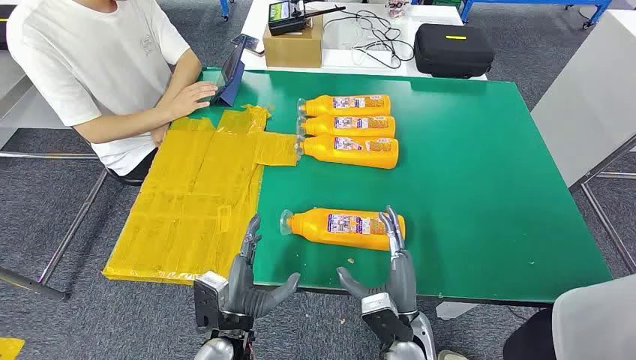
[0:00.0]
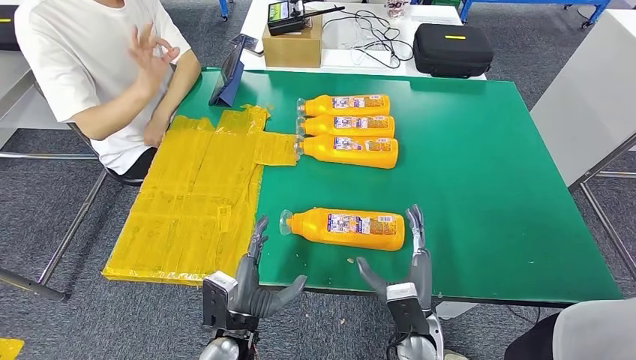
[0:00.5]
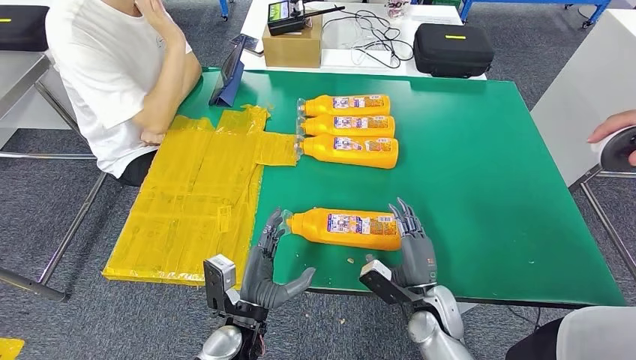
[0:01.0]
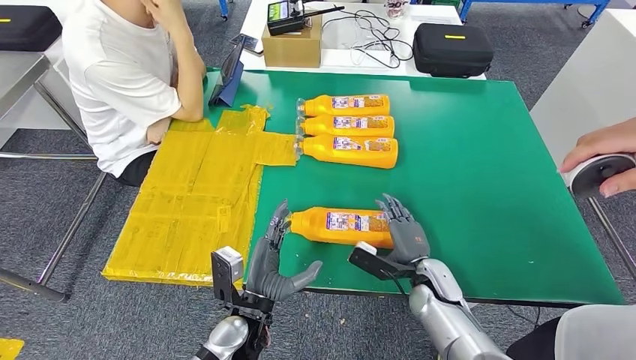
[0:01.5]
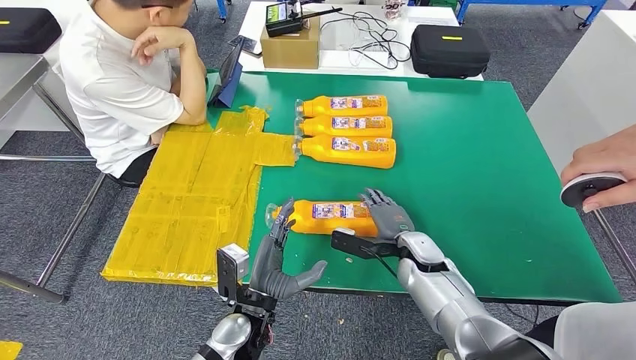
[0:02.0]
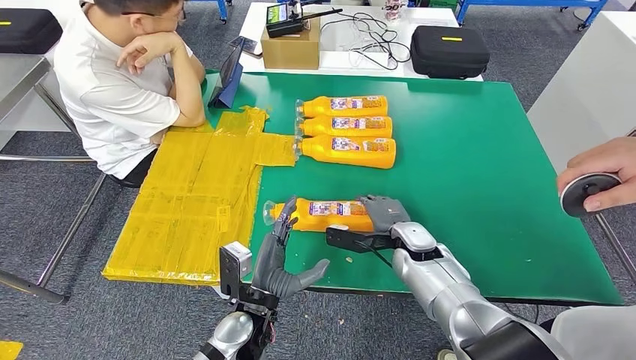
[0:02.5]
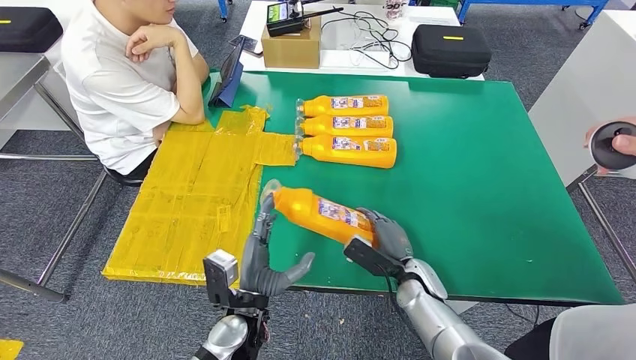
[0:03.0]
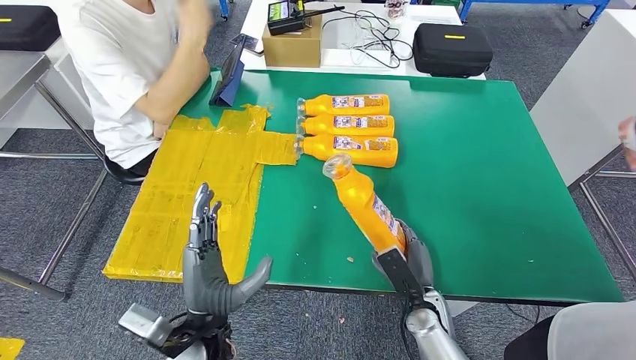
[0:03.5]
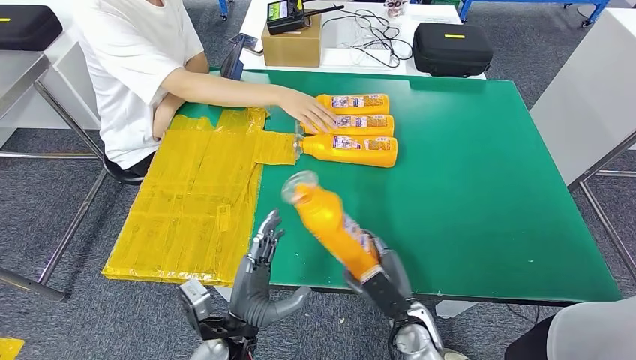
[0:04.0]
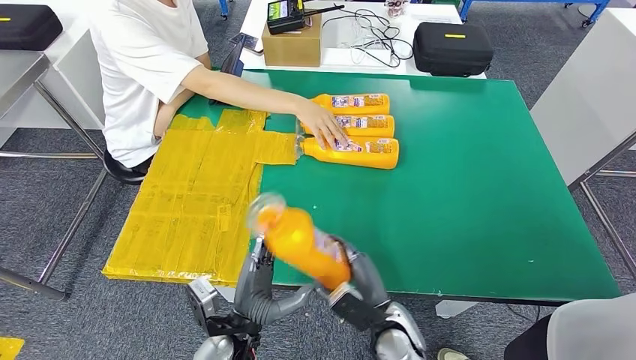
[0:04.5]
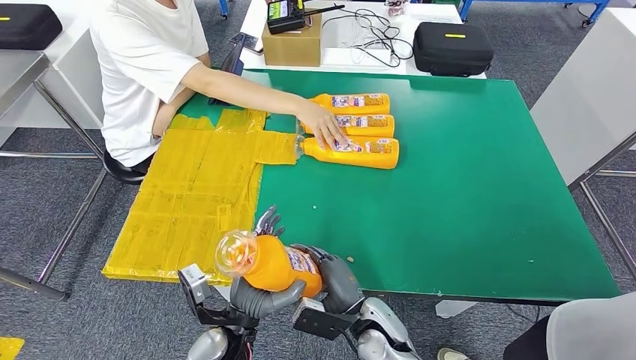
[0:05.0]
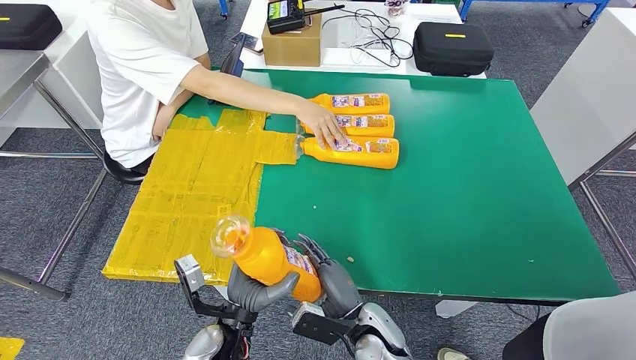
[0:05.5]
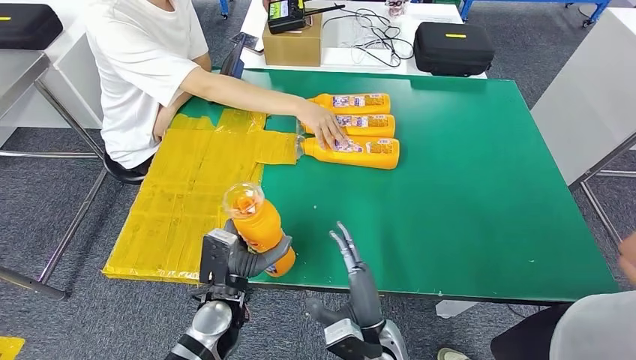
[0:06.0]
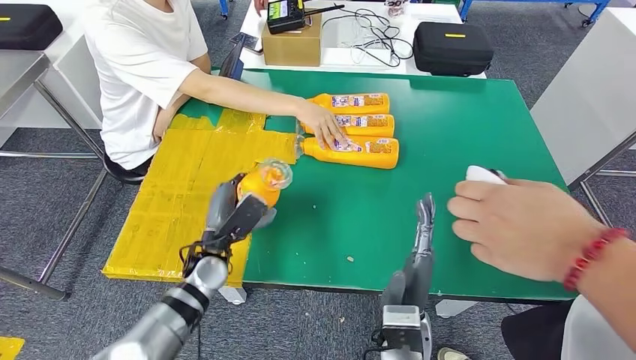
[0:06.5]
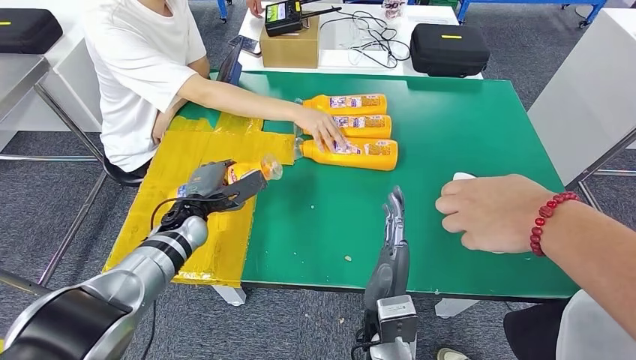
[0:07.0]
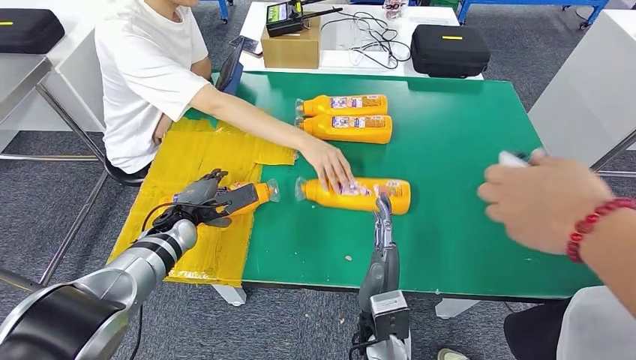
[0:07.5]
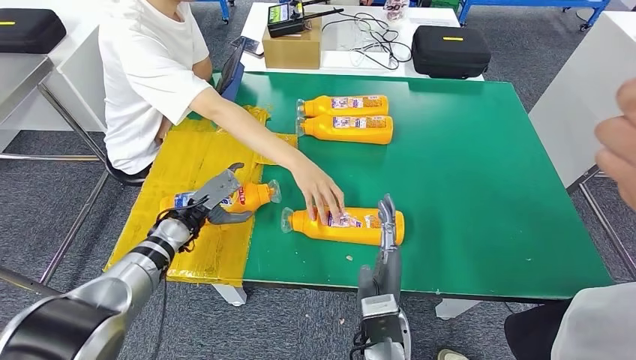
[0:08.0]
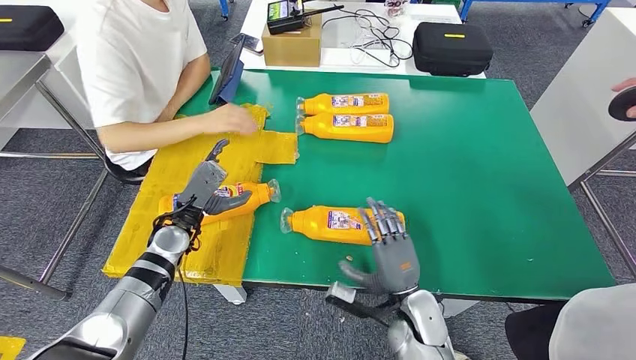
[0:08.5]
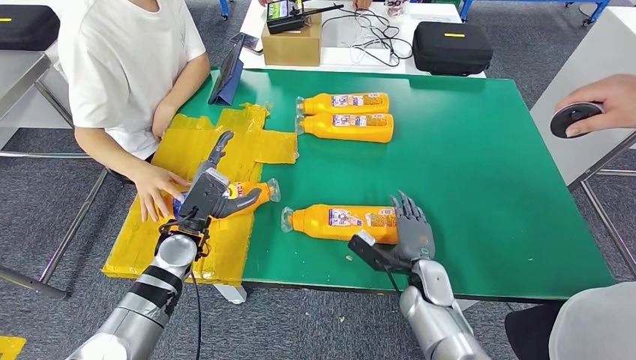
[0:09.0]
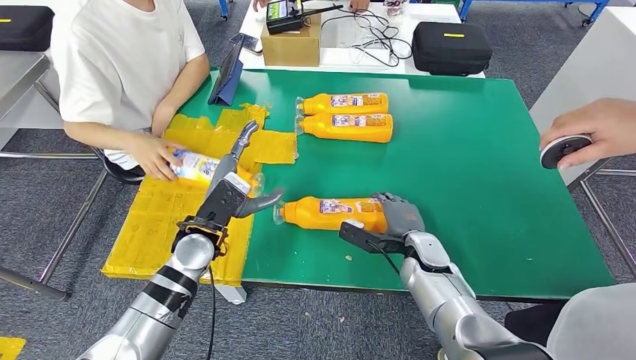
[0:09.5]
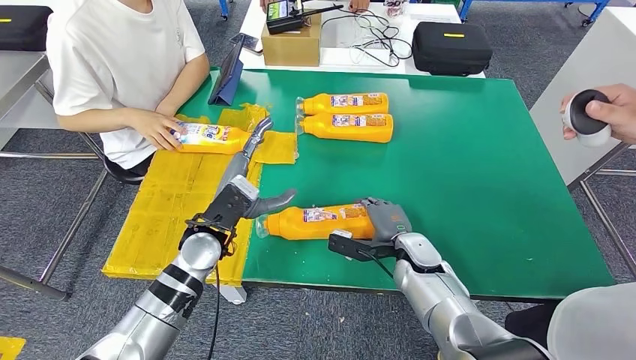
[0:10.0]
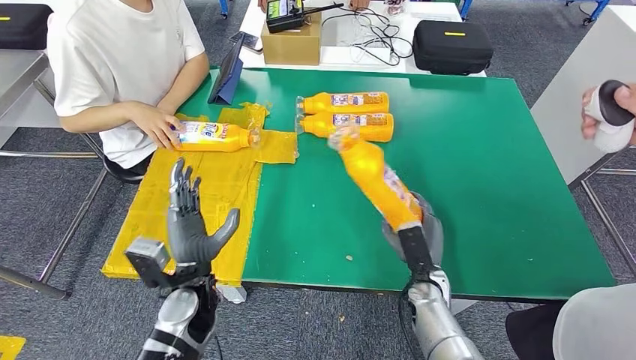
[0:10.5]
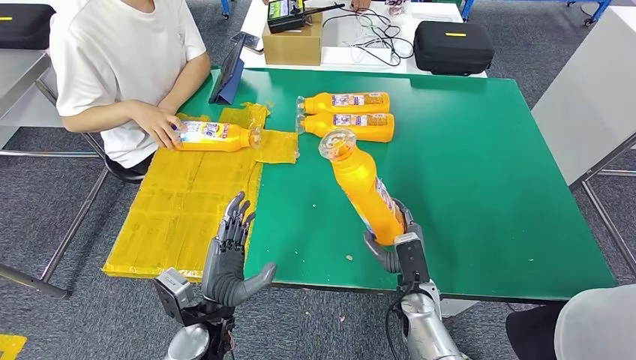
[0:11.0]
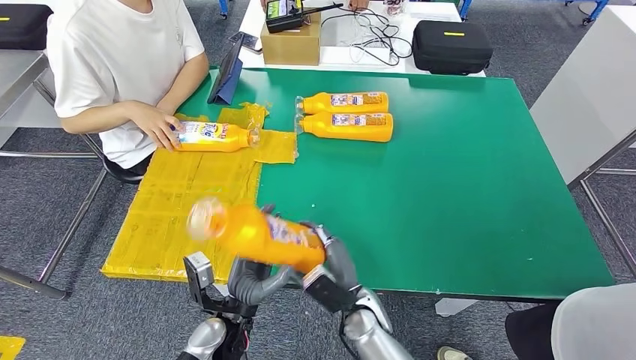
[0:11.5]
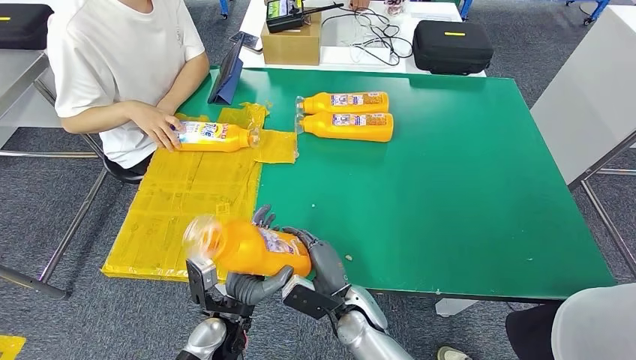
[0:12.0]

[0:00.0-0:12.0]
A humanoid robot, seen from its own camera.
Step, 0:00.0 to 0:03.0: Take the bottle from the table.
Step, 0:04.5 to 0:09.0: Flip the bottle to face forward.
Step, 0:09.5 to 0:11.0: Pick up the bottle from the table.
0:04.0 to 0:06.0: The right hand goes about 5 cm to the left; the left hand heads forward, covering roughly 5 cm.

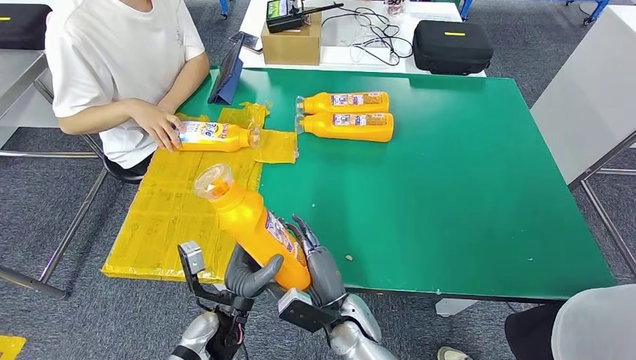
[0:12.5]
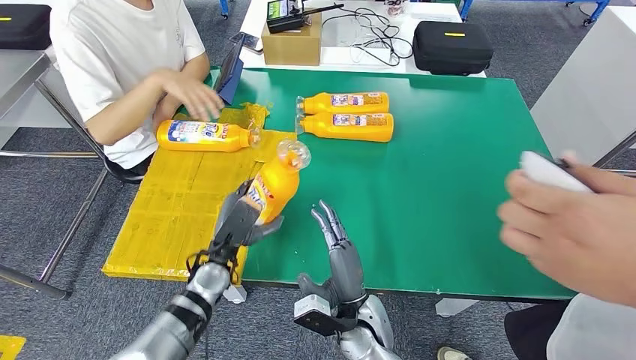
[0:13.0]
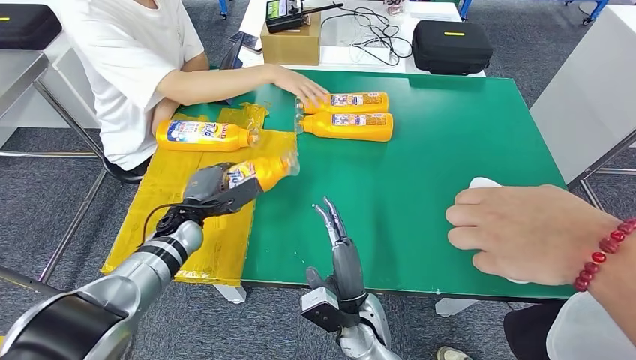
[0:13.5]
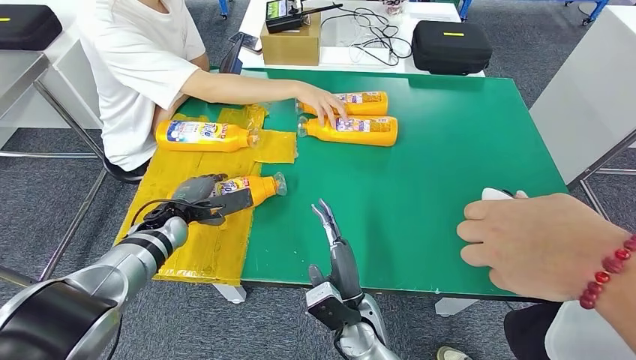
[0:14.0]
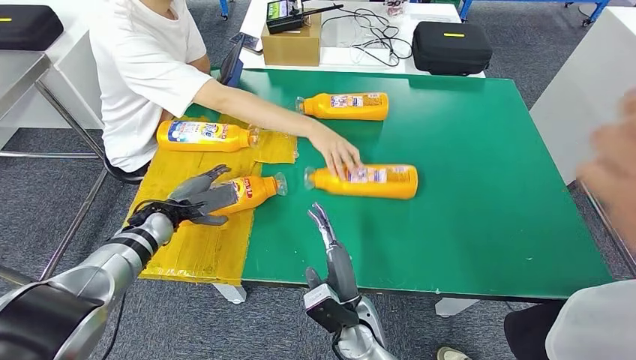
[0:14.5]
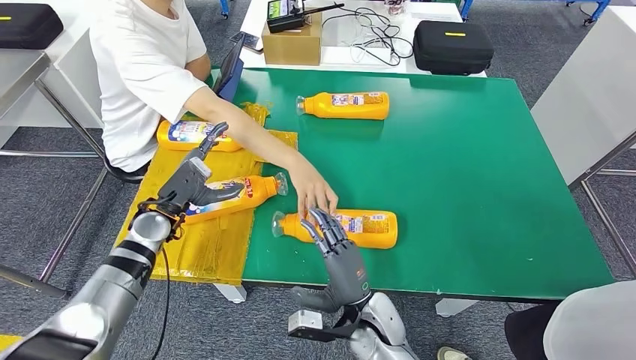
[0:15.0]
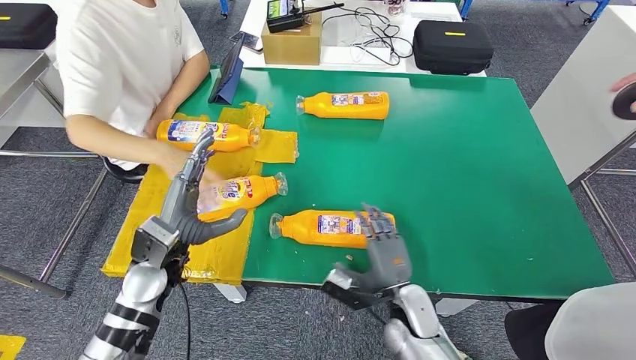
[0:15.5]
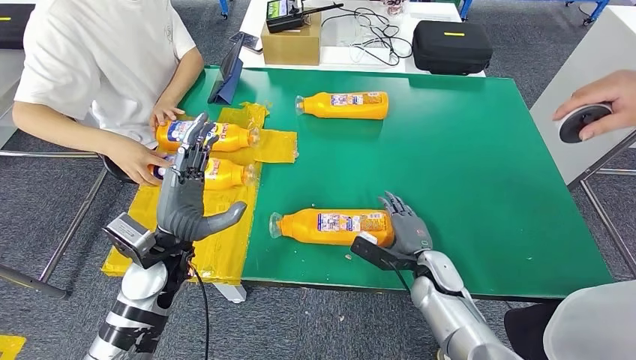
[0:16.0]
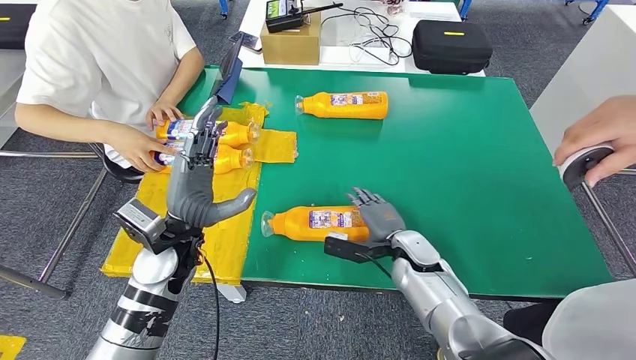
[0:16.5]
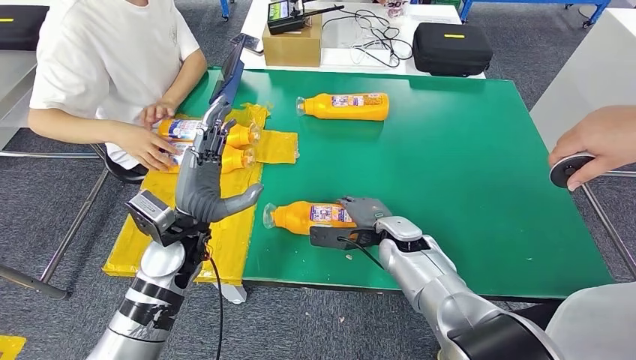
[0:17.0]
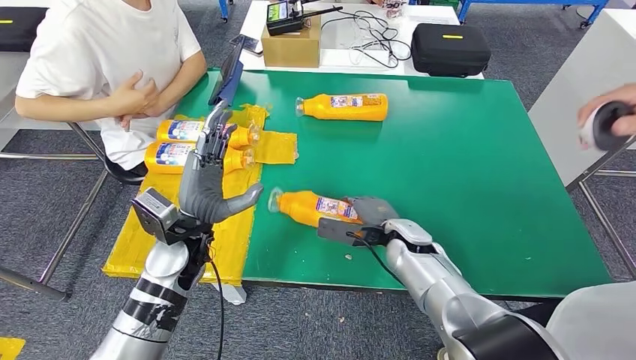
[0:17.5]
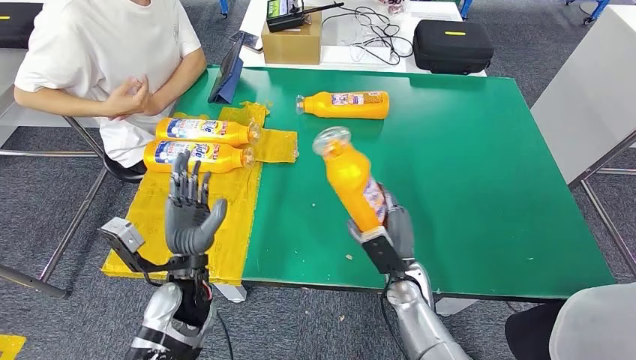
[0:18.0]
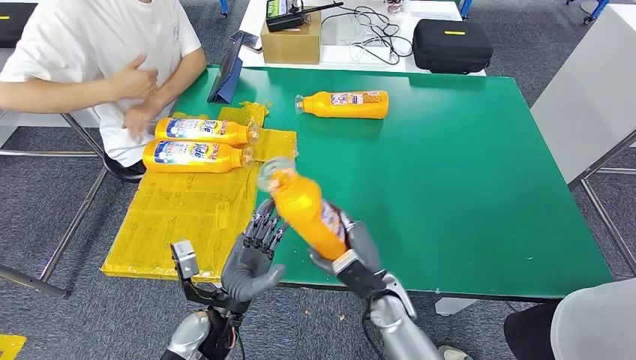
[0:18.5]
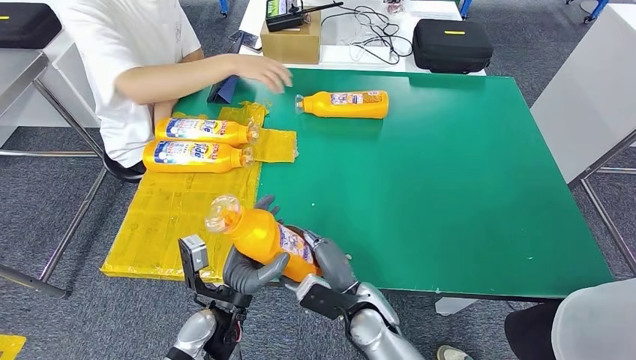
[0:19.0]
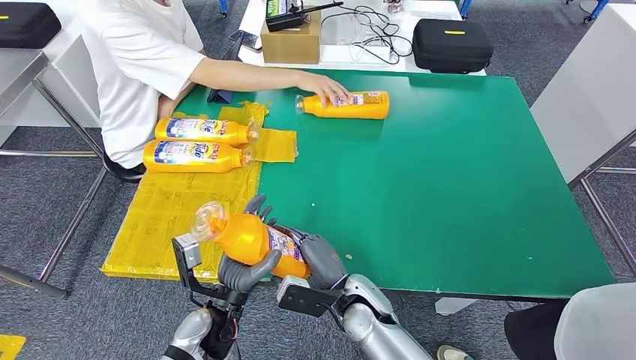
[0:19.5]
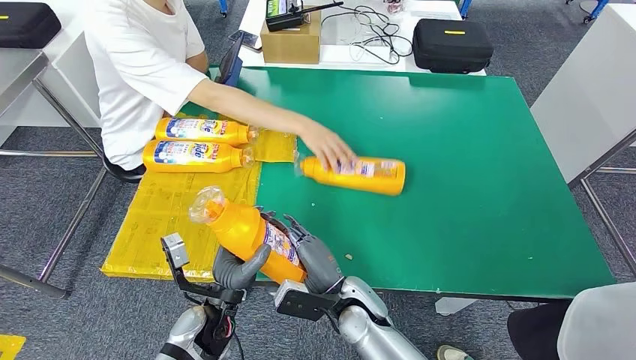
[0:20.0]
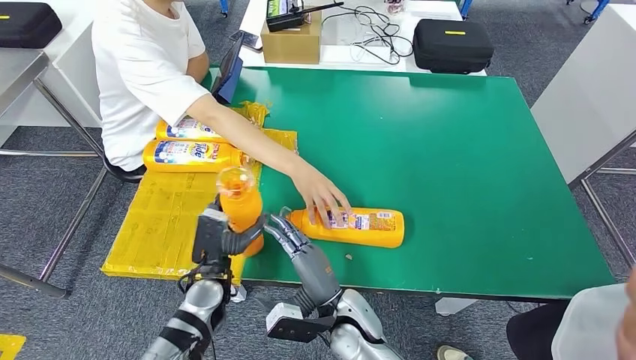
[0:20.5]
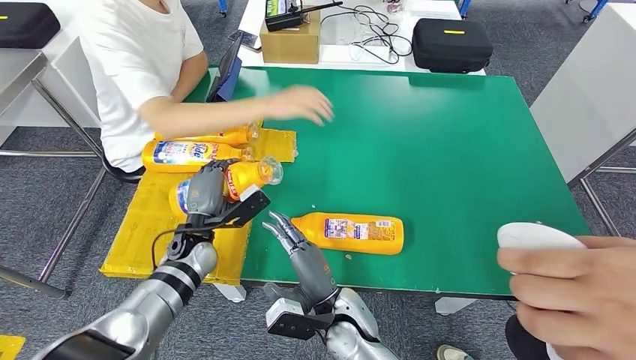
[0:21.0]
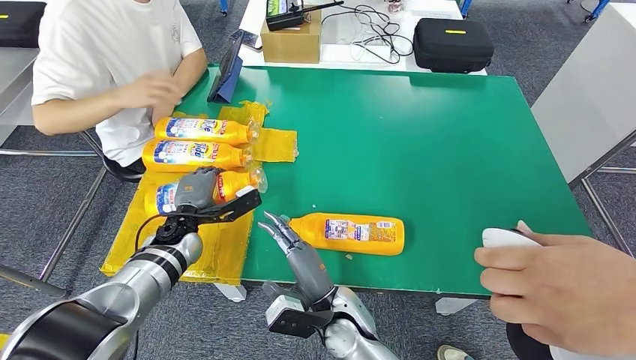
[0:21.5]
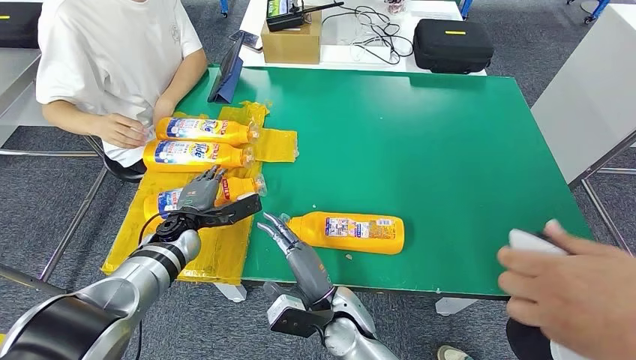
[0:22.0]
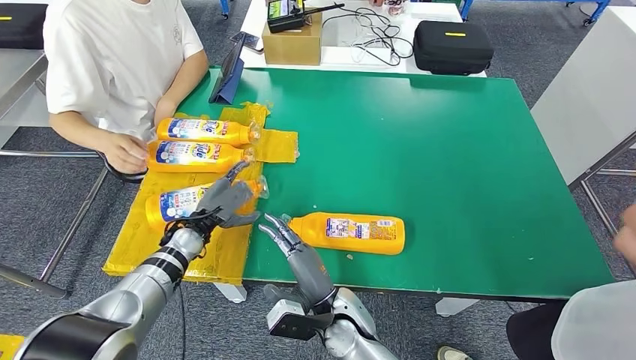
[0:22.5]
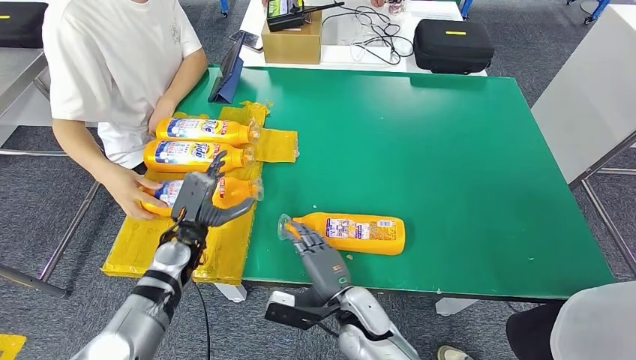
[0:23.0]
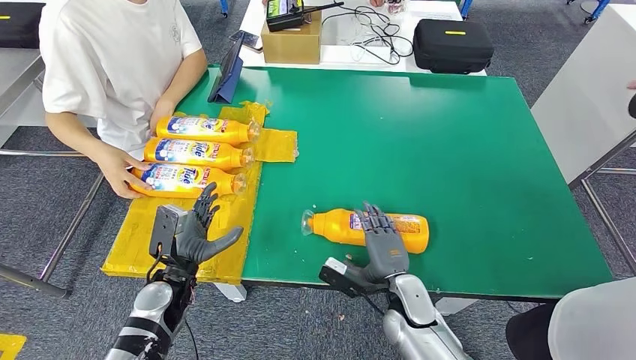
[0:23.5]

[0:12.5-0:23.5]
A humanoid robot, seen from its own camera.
Step, 0:12.5 to 0:16.0: Flip the bottle to face forward.
Step, 0:16.5 to 0:19.0: Pick up the bottle from the table.
Step, 0:19.5 to 0:23.5: Flip the bottle to face forward.
